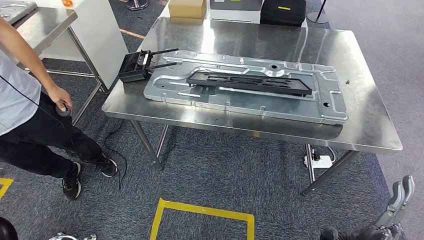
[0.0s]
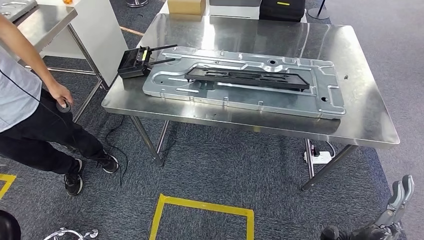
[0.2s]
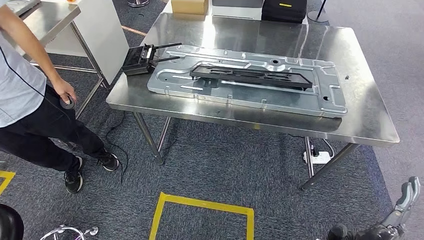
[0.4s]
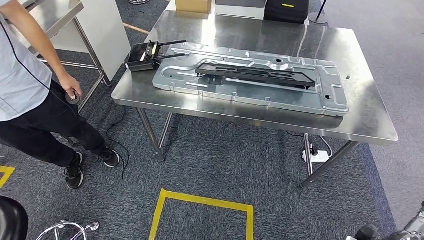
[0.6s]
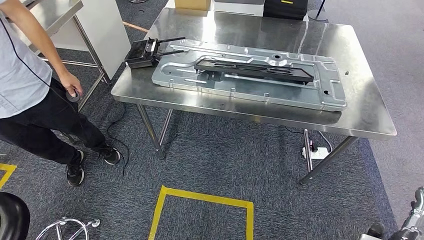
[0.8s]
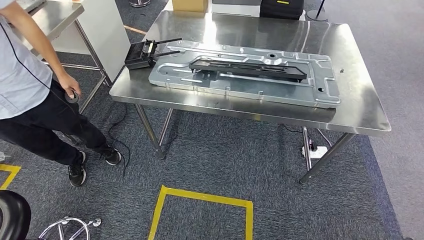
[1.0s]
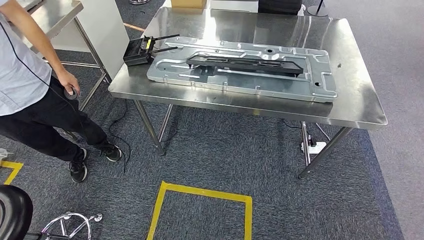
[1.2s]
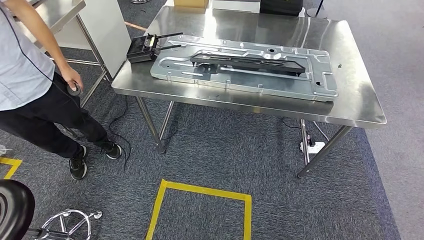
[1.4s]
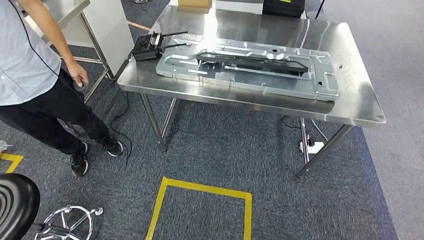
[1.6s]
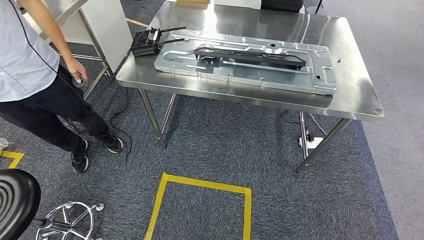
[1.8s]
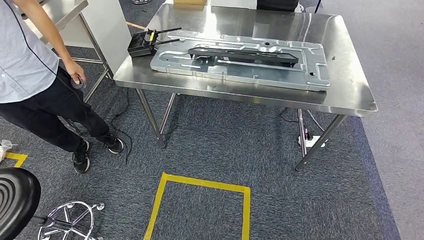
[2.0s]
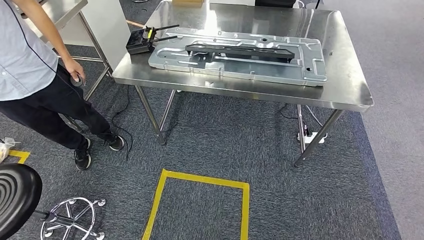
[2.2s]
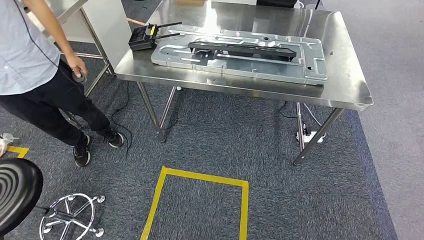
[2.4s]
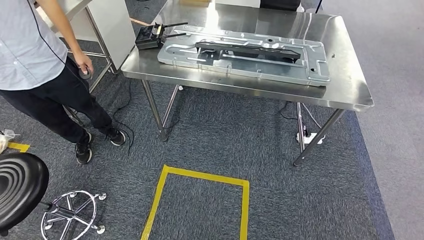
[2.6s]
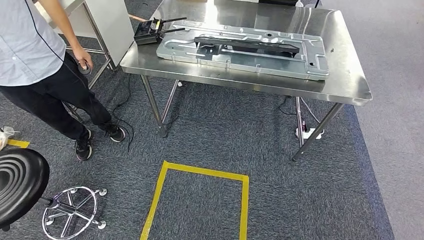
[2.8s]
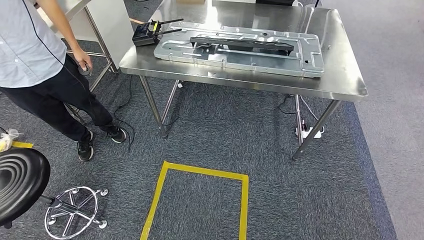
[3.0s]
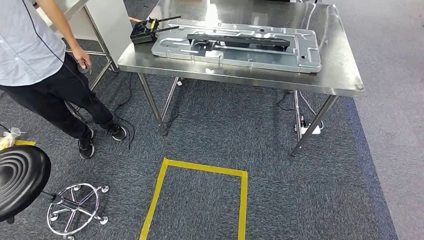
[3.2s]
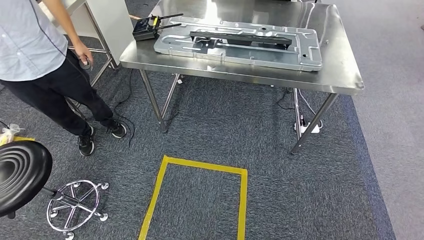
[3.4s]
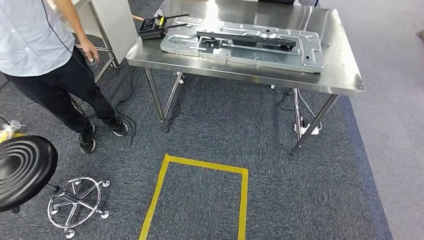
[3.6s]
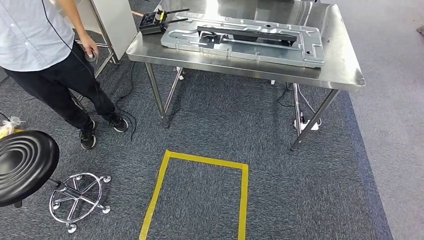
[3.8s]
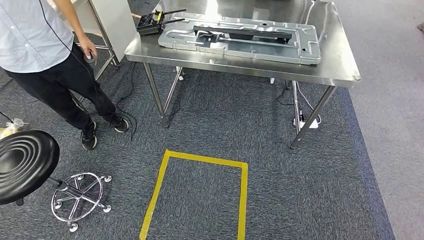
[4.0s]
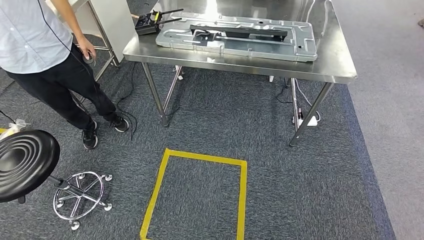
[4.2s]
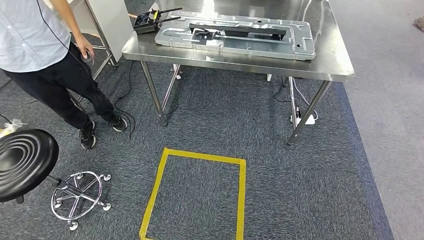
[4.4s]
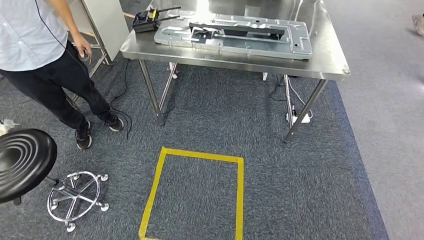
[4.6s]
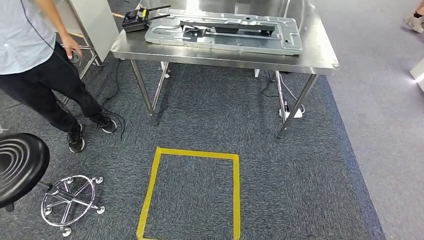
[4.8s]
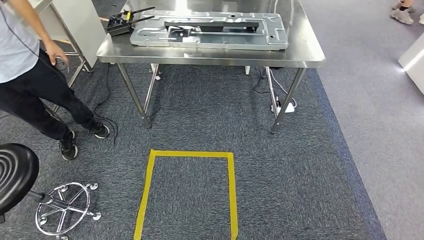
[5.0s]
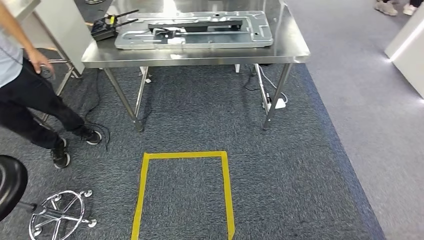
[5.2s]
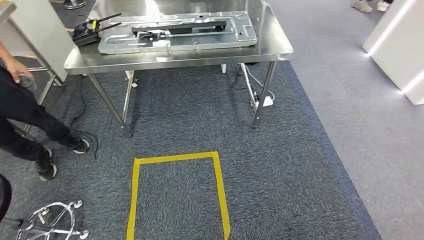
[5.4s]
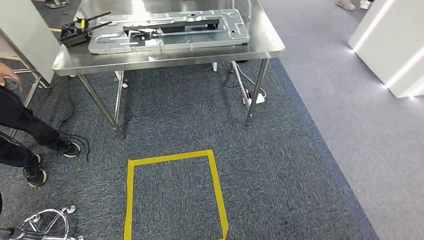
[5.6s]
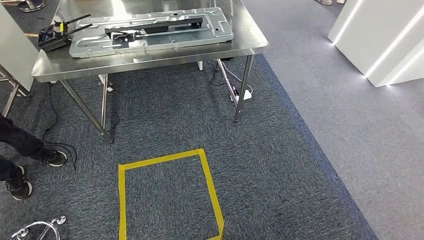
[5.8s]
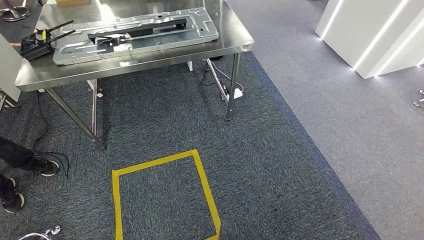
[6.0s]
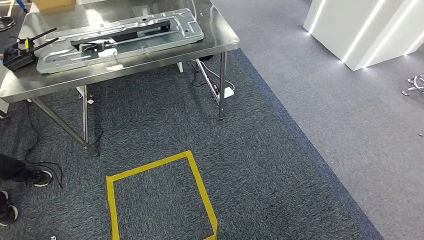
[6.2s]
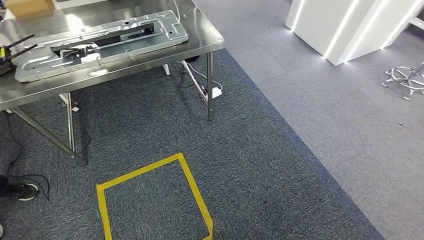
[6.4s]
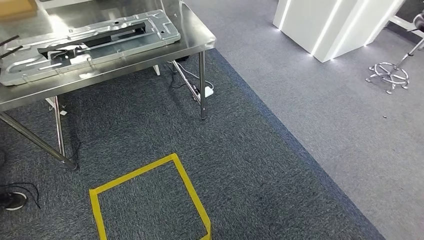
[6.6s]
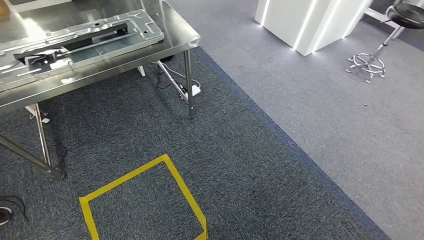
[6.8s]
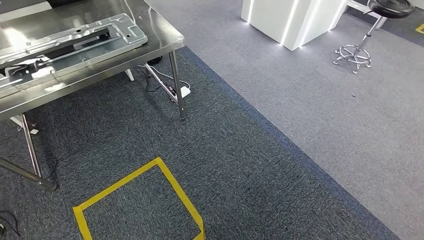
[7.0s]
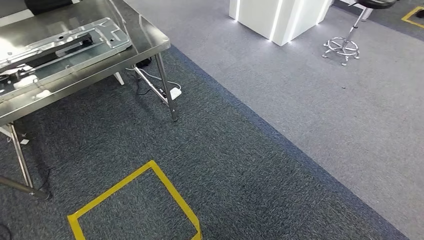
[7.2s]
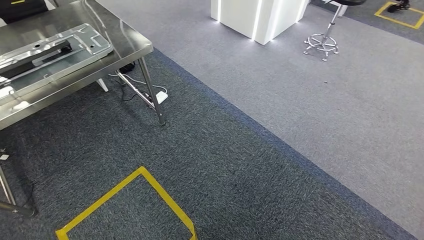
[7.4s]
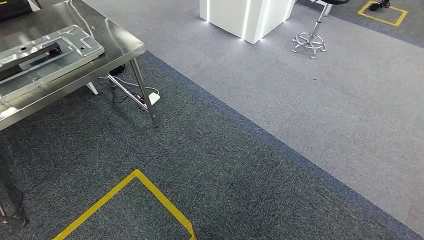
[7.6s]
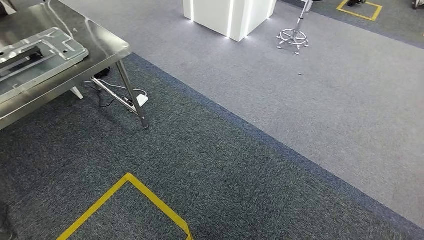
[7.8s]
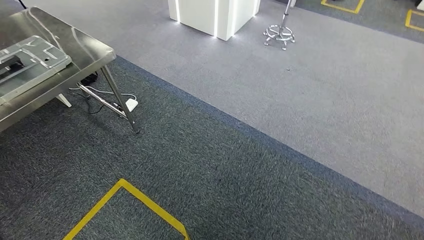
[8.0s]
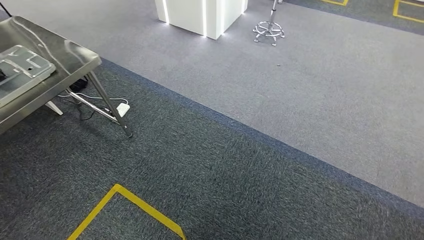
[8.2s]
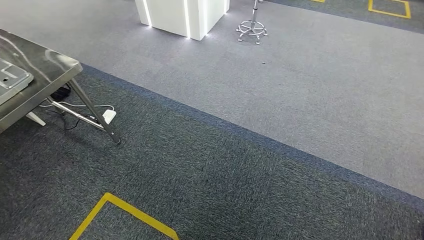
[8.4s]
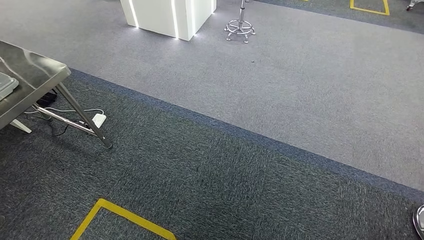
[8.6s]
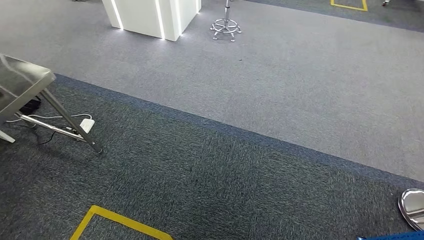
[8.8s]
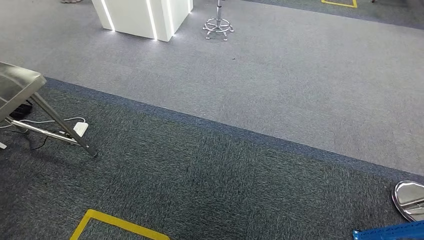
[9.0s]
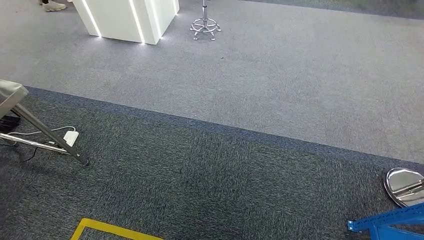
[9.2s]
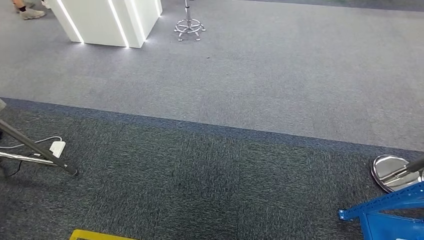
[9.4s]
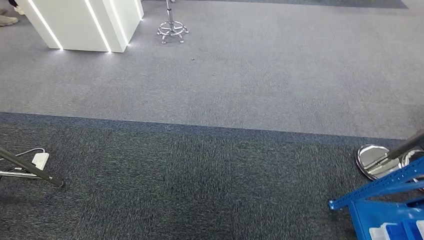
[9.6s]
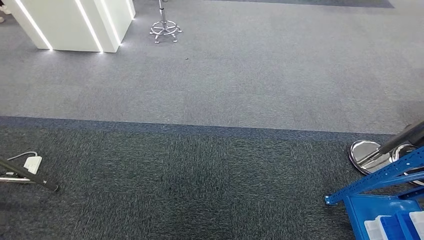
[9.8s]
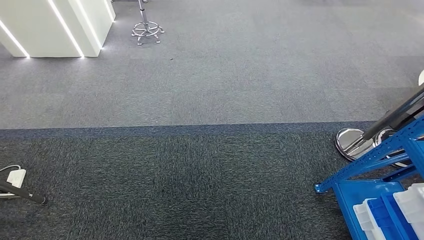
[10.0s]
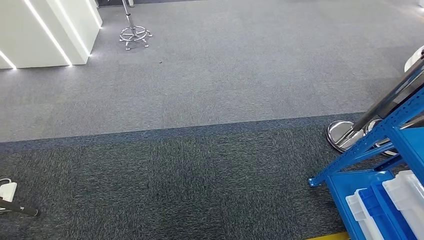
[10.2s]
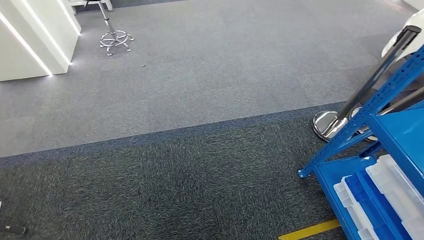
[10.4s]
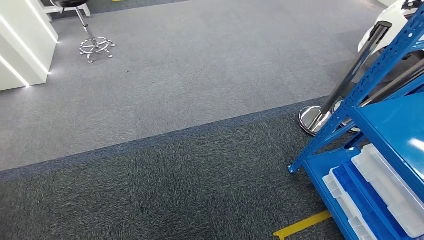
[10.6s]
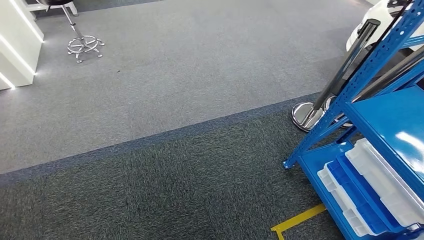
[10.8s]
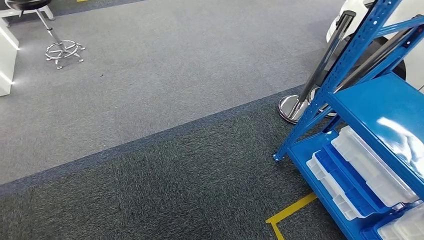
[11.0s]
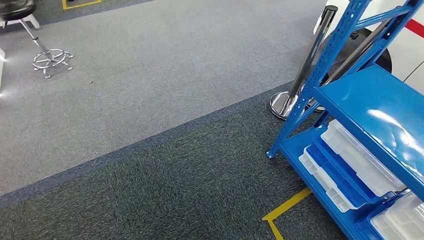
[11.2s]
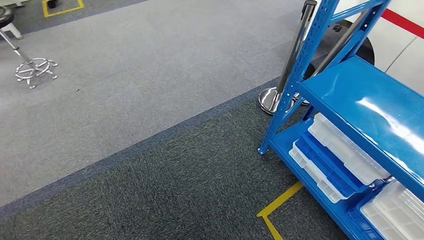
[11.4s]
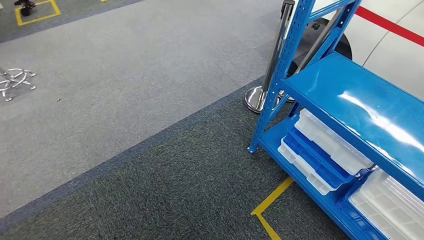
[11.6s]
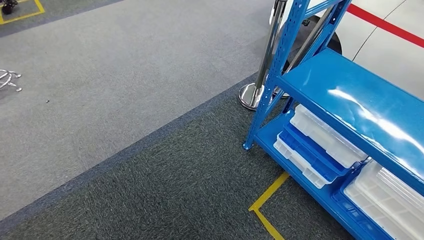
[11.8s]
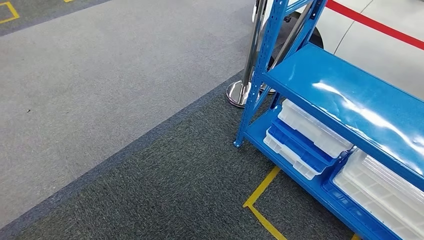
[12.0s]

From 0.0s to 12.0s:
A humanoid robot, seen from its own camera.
Step, from 0.0s to 8.6s: Return to the initial position at the shelf.
